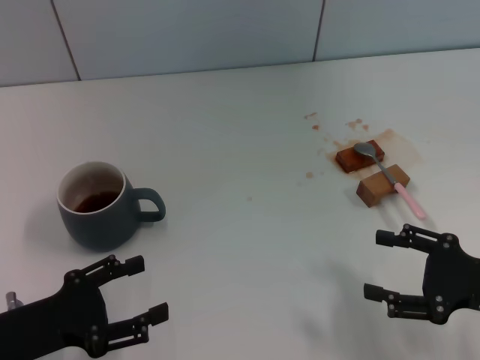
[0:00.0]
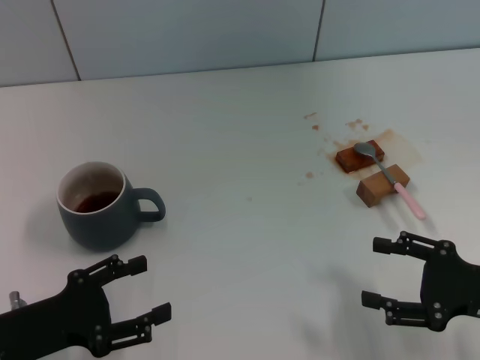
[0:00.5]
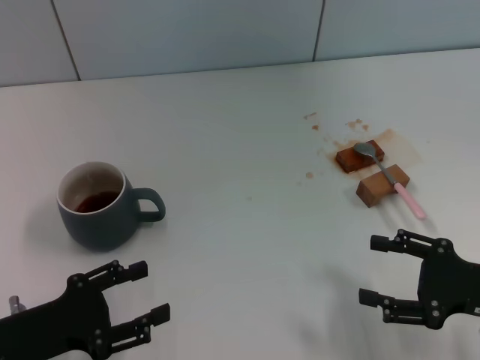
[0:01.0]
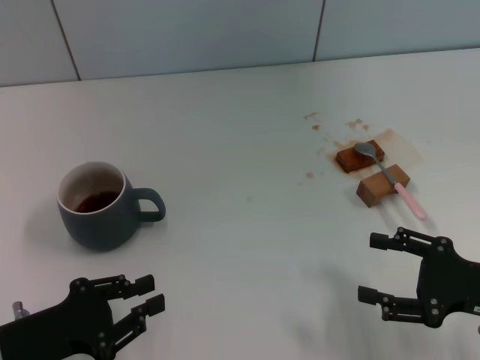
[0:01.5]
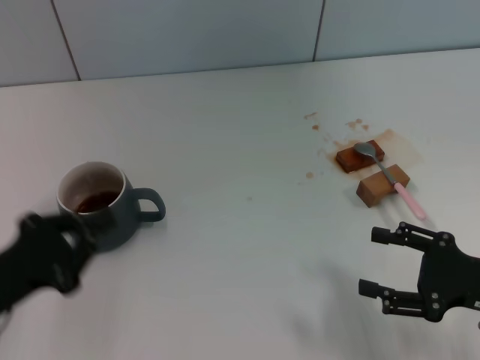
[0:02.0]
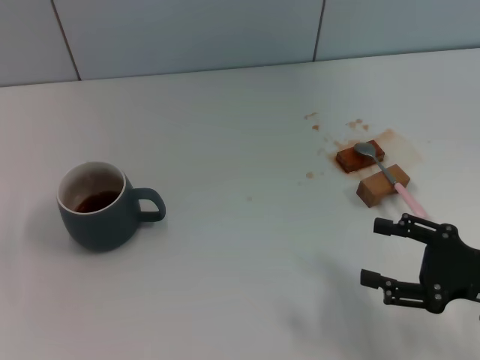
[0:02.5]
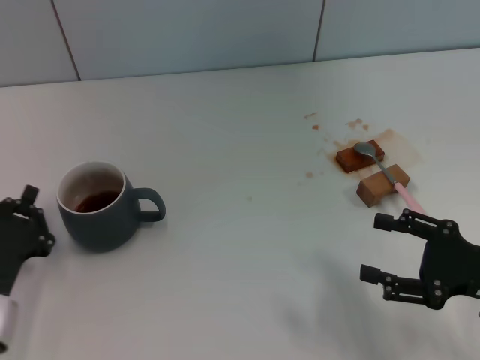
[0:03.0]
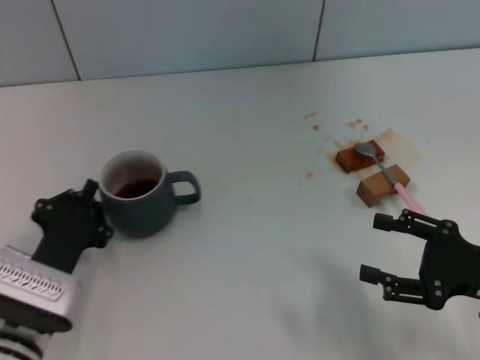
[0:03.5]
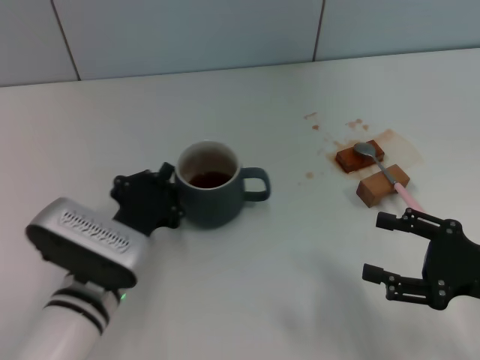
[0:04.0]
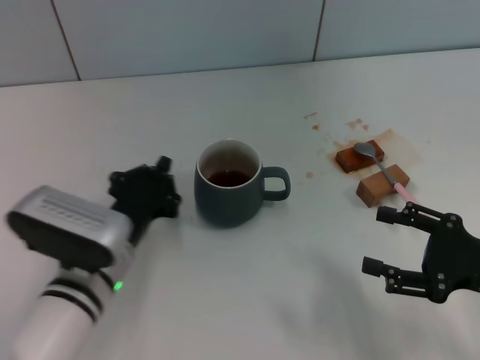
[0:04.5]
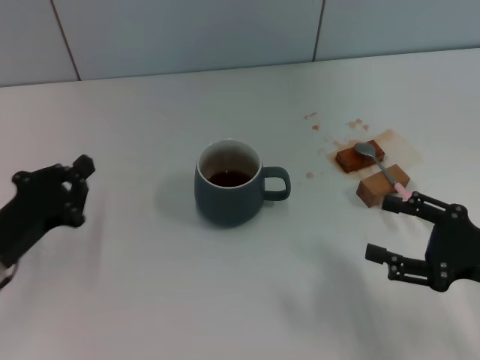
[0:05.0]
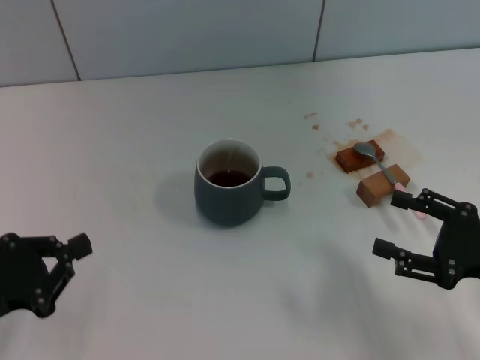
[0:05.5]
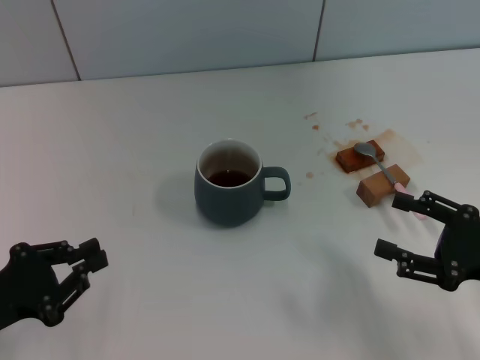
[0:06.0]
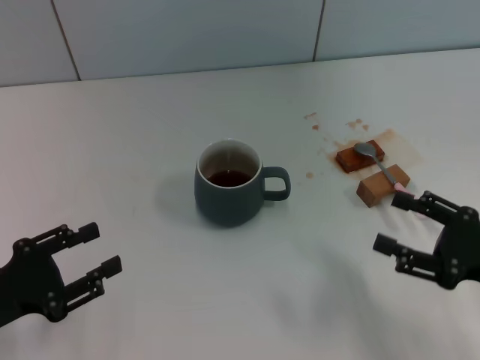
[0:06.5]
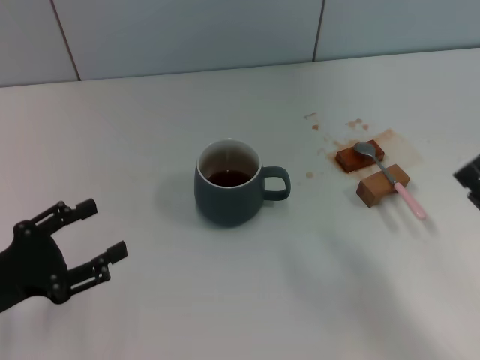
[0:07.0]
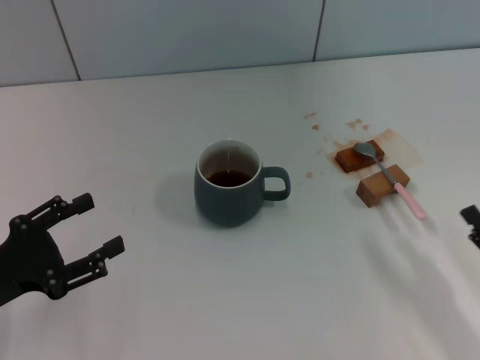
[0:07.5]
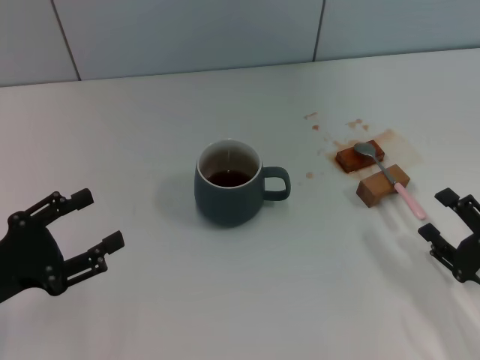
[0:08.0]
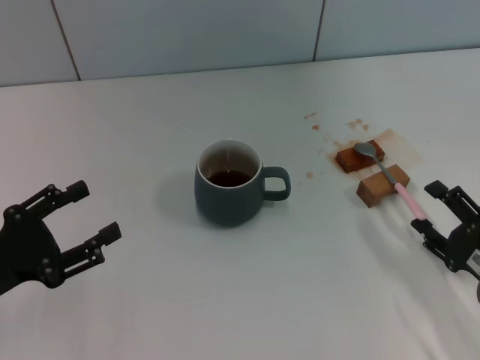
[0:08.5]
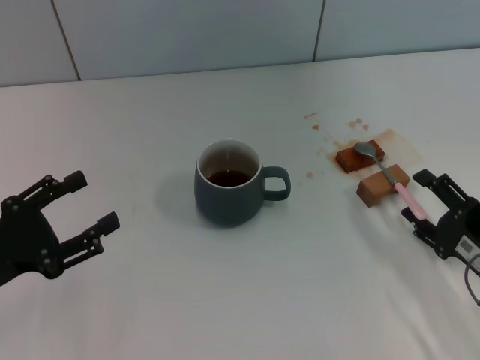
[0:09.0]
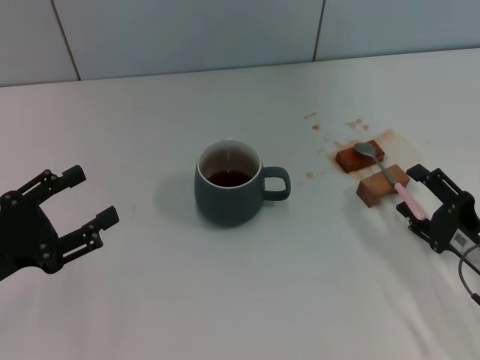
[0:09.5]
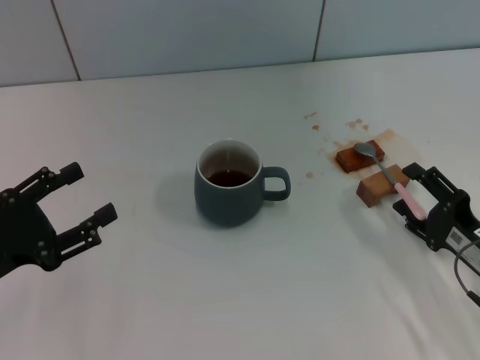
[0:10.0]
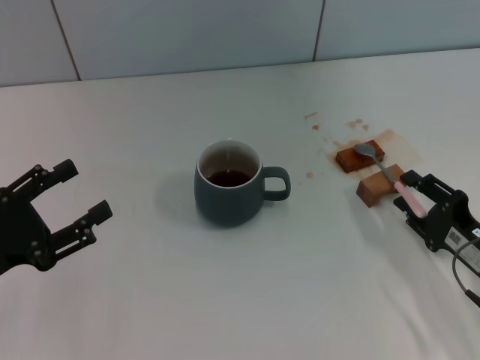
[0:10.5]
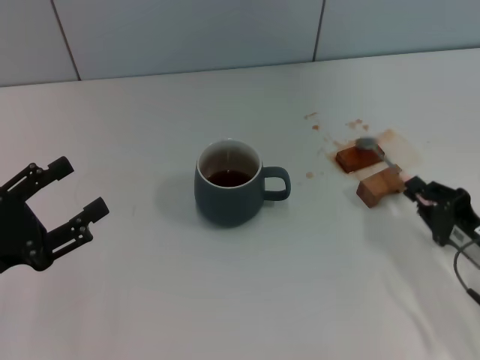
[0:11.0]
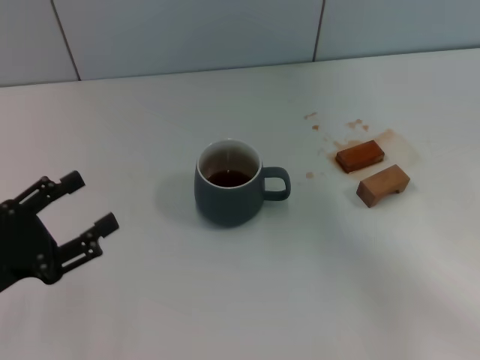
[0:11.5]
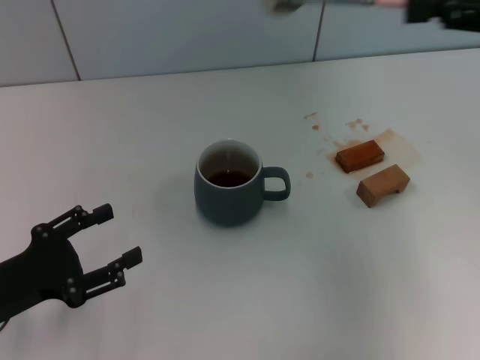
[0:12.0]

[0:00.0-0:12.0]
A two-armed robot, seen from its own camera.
Task of the whole recording: Move the grey cup to the center, lift the pink spoon, stir it three times in the cup, and put the spoon into the cup.
Step, 0:00.0 to 0:04.5: Move the cup with coffee to the center of view with the left gripper.
Step, 0:05.0 to 0:11.0: Pick up the spoon with the right gripper.
0:00.0 to 0:02.0: The left gripper closes up.
0:02.0 to 0:04.0: The left gripper moves to the right, some 15 cm.
0:04.0 to 0:06.0: The left gripper travels to the left by roughly 15 cm.
0:06.0 to 0:08.0: The right gripper heads downward, covering about 5 cm, while the left gripper opens up.
0:08.0 to 0:10.0: The right gripper ends up roughly 5 cm from where it was.
0:10.0 to 0:12.0: The right gripper goes some 30 cm upward and forward, and closes.

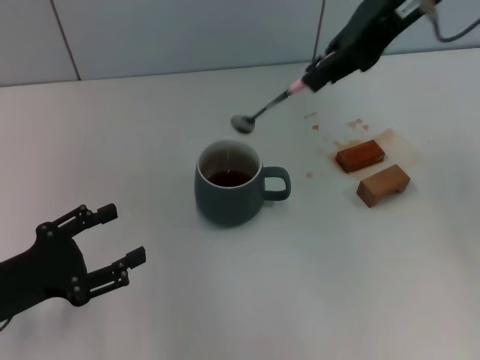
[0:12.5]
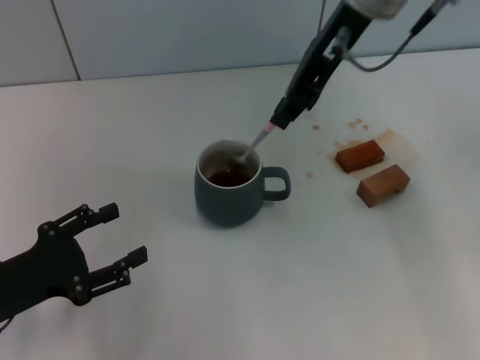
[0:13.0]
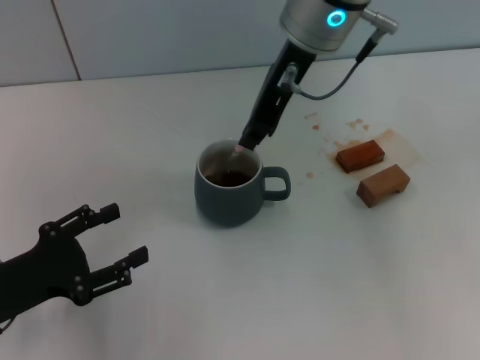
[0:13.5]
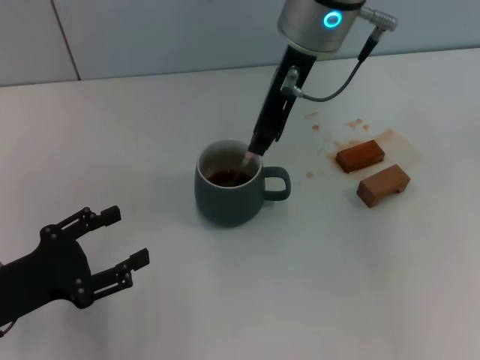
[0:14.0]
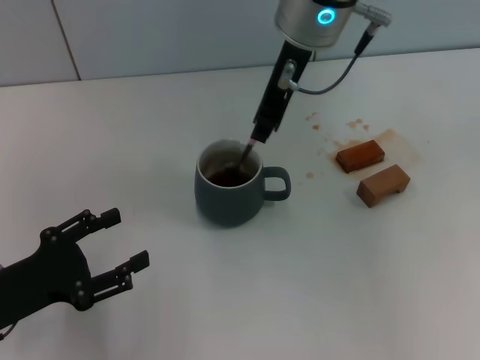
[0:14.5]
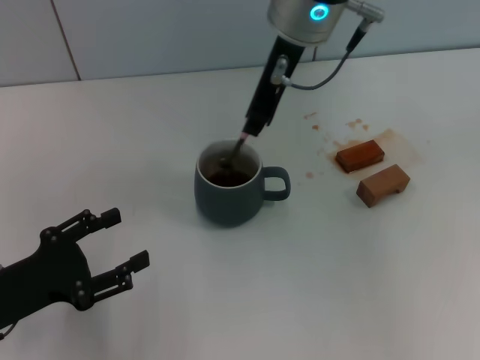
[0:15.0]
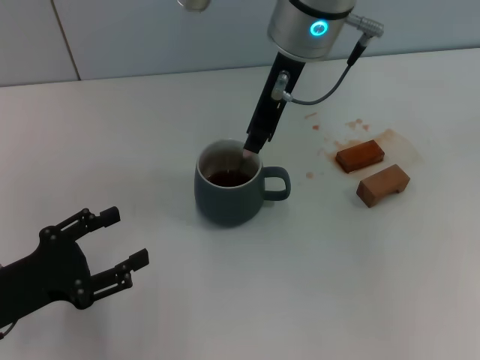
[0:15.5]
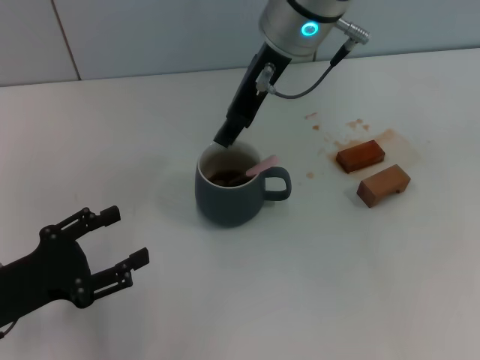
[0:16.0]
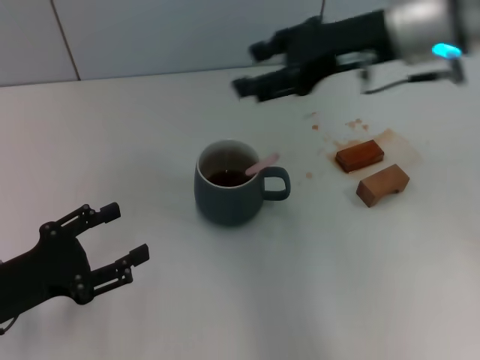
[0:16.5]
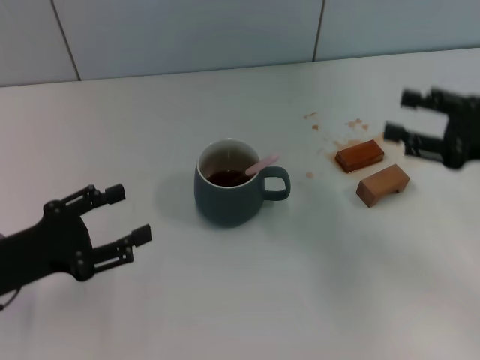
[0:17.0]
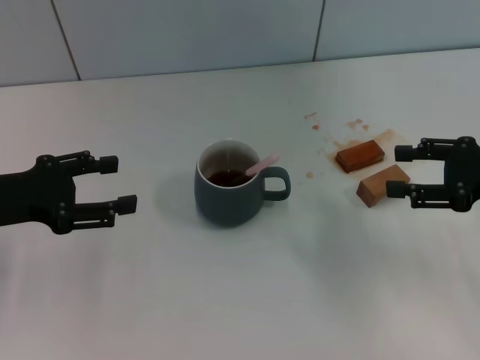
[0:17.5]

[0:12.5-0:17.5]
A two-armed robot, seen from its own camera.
Task of the whole recording: Move the grey cup to the center, lift the pink spoon, stir it three times in the cup, and put the spoon into the cup.
Step, 0:12.5 to 0:16.0: Stir the coffee in the cup with the right gripper.
0:12.5 to 0:15.0: The right gripper is displaced to the left and downward by approximately 15 cm.
0:15.0 to 0:17.5: The right gripper goes some 35 cm to the right, downward and backward, and opens its fingers; the left gripper shifts some 10 cm forward and upward.

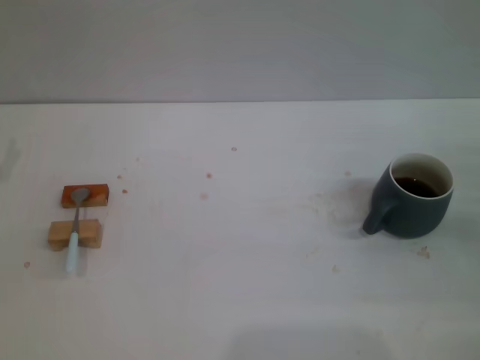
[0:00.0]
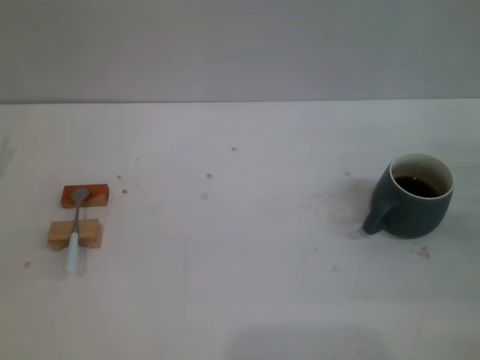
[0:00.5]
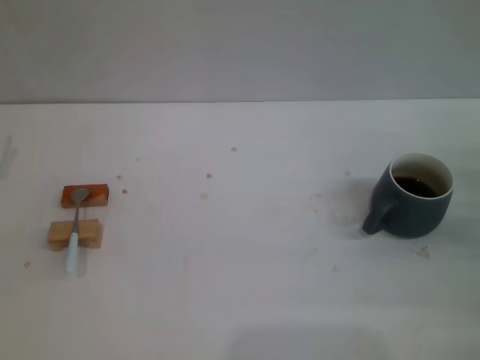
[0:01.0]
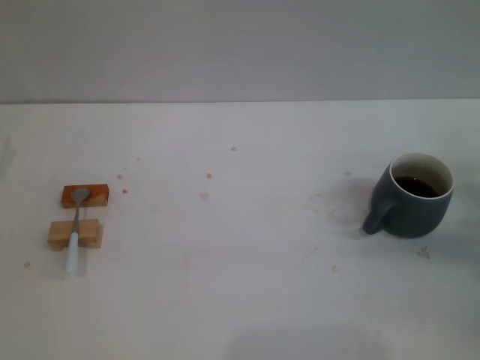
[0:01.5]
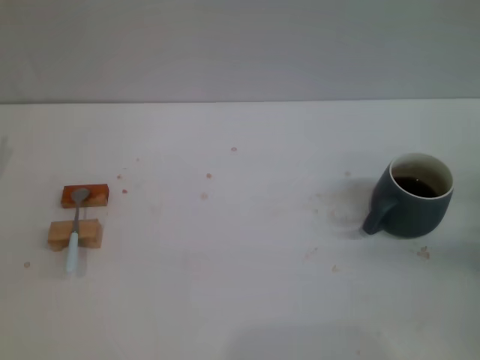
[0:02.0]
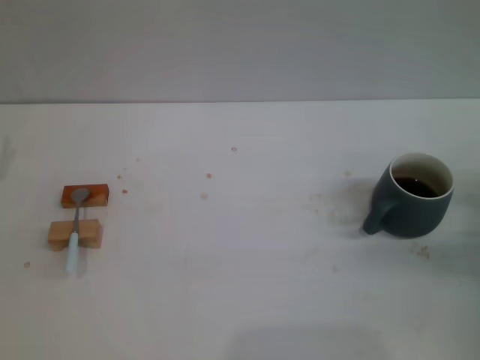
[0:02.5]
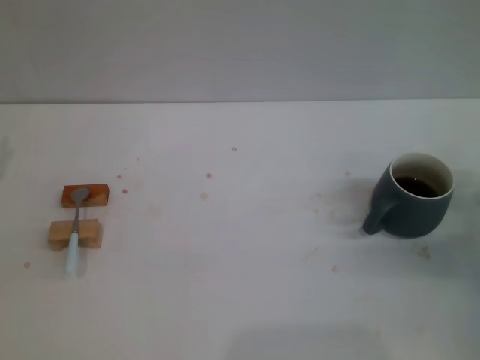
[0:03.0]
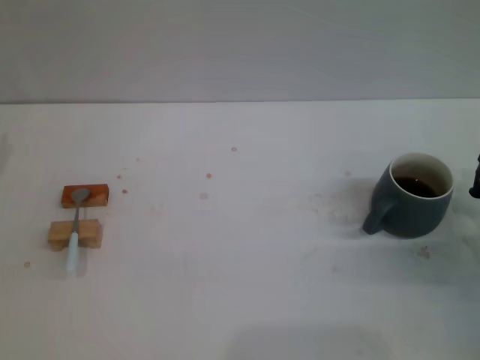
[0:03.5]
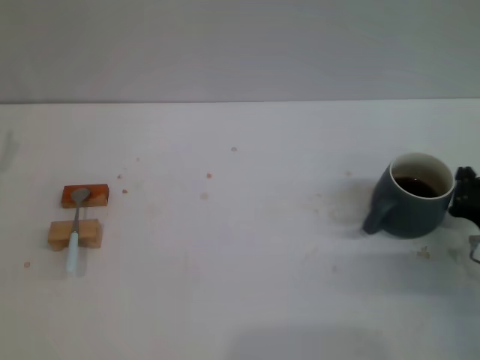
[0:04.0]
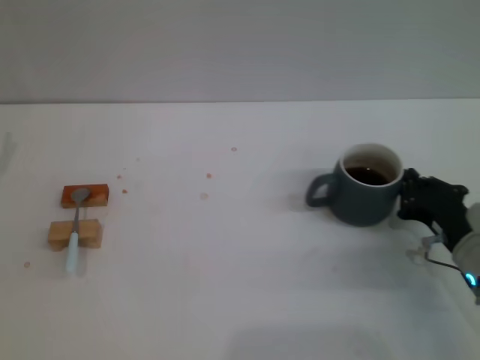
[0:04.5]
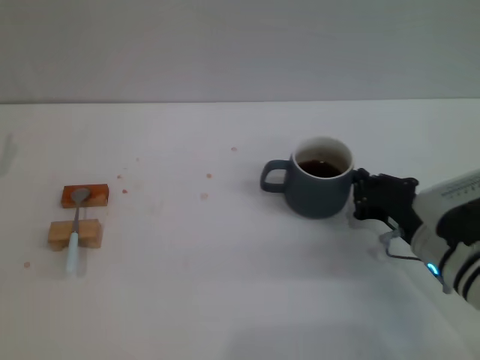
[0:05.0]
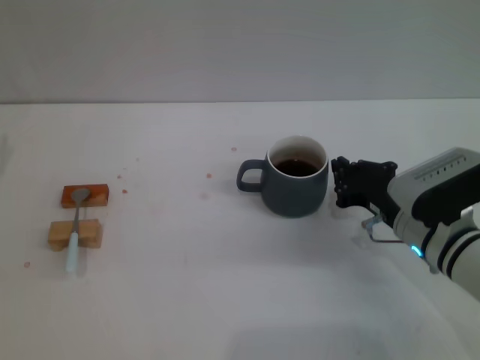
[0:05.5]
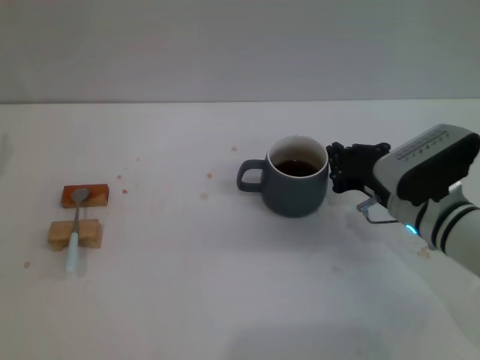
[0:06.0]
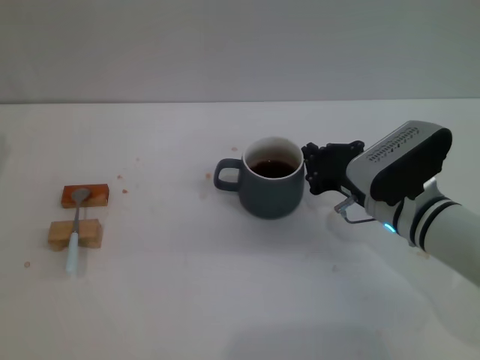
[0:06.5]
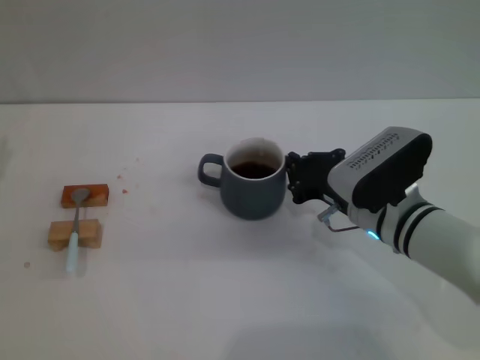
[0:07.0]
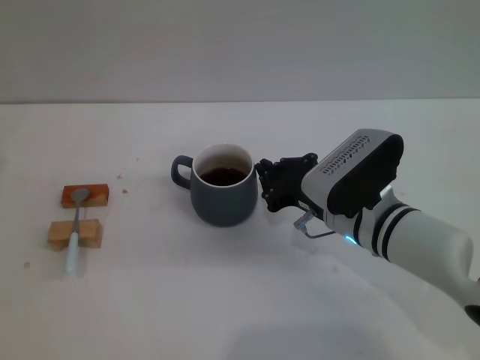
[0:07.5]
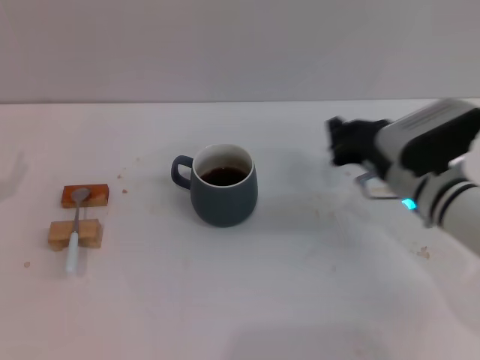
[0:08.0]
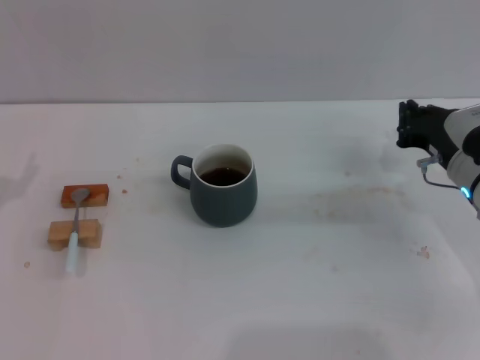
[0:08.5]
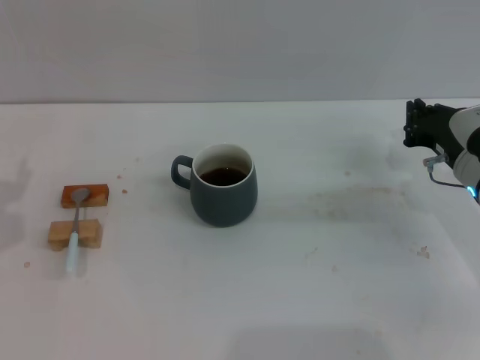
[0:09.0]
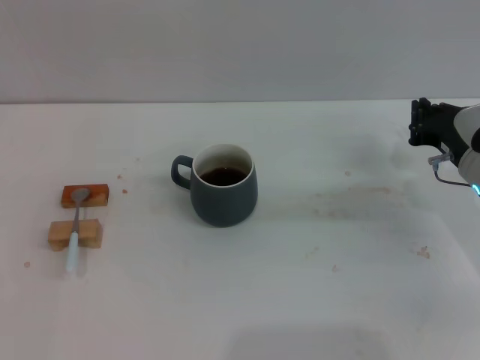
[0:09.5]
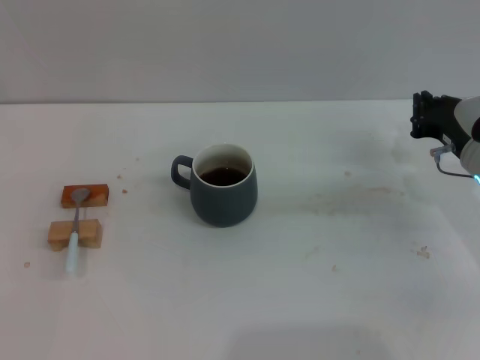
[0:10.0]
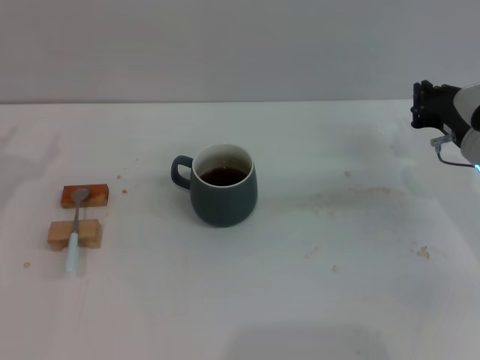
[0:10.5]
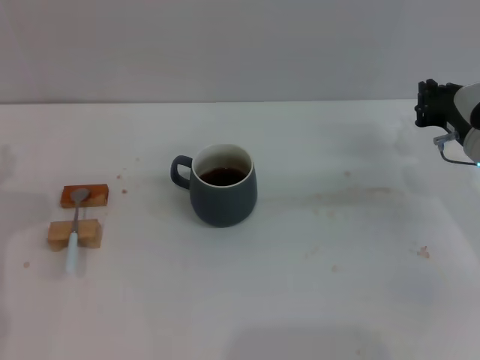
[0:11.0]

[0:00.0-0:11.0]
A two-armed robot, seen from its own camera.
Task of the whole recording: Move the grey cup to the center, lift the blue spoon, stir it three times in the cup, and put the spoon into the cup.
Step, 0:00.0 to 0:08.5: Move the cup with coffee to the center of view with the right gripper.
0:02.0 to 0:03.5: The right gripper ends up approximately 5 cm from where it was, and closes its fingers.
0:03.5 to 0:05.5: The right gripper is displaced to the left by approximately 10 cm.
0:05.5 to 0:07.5: The right gripper shifts roughly 5 cm to the left.
0:07.5 to 0:09.0: The left gripper changes place by about 5 cm, while the right gripper goes approximately 15 cm to the right.
